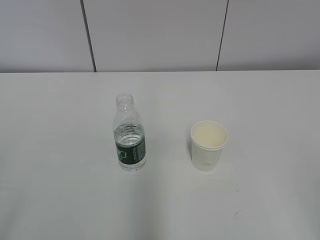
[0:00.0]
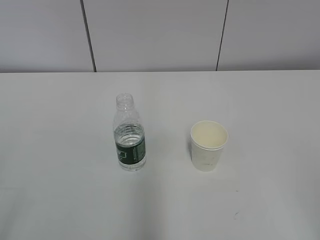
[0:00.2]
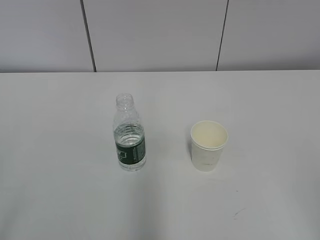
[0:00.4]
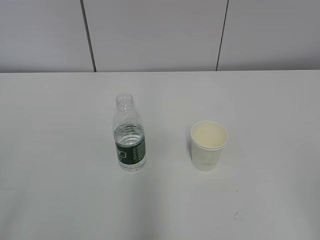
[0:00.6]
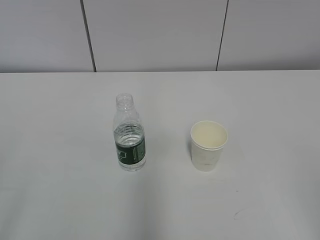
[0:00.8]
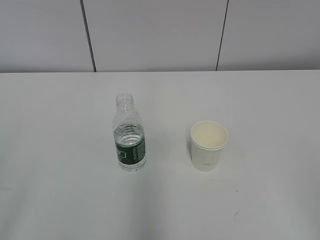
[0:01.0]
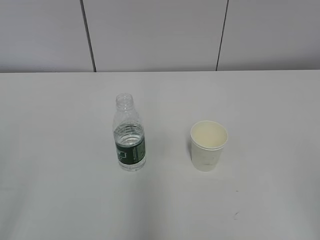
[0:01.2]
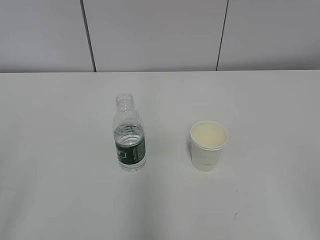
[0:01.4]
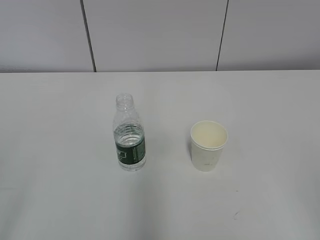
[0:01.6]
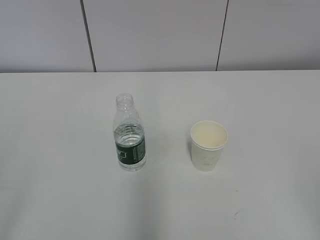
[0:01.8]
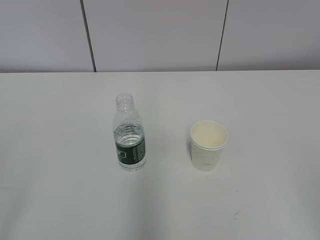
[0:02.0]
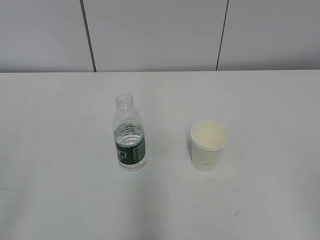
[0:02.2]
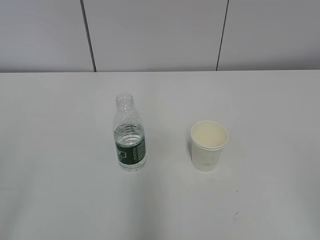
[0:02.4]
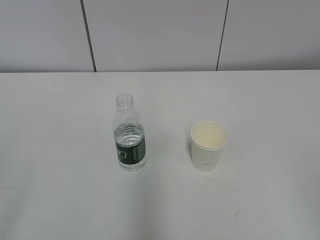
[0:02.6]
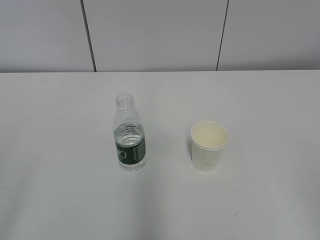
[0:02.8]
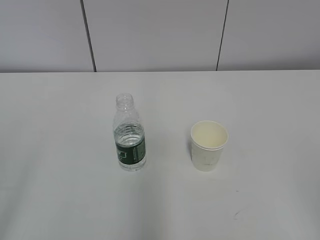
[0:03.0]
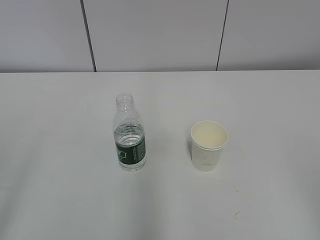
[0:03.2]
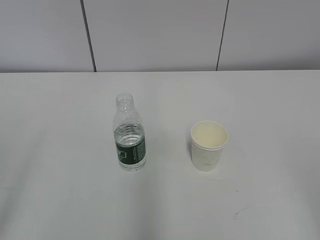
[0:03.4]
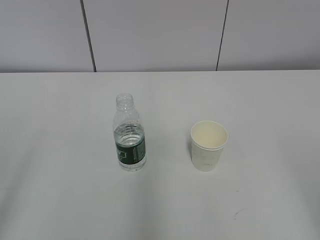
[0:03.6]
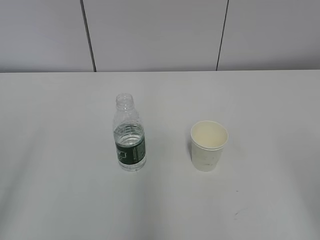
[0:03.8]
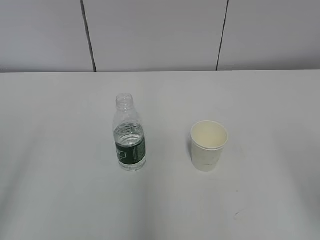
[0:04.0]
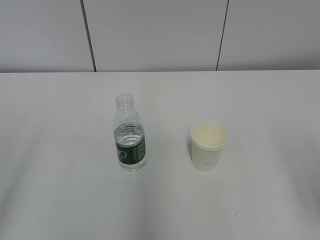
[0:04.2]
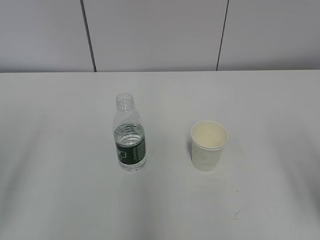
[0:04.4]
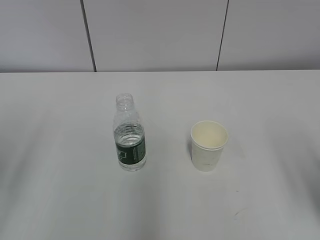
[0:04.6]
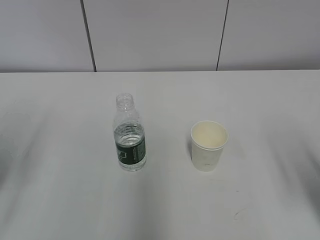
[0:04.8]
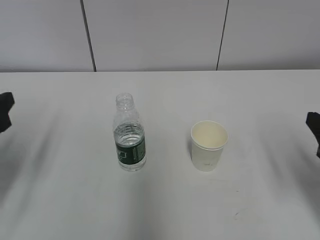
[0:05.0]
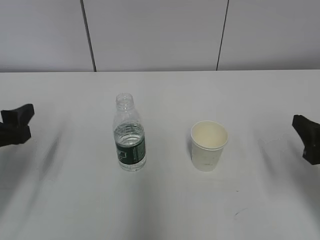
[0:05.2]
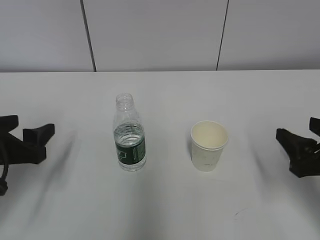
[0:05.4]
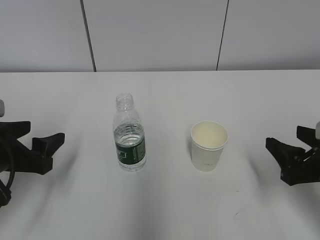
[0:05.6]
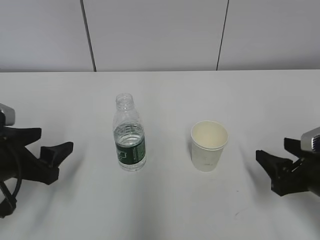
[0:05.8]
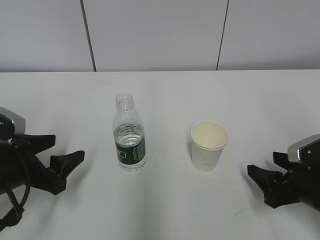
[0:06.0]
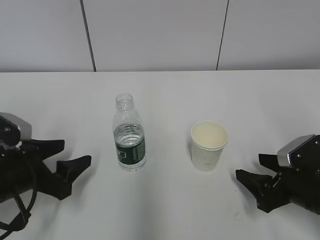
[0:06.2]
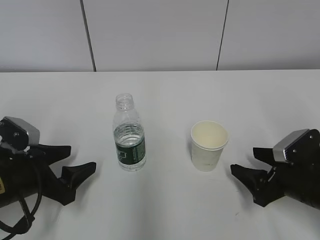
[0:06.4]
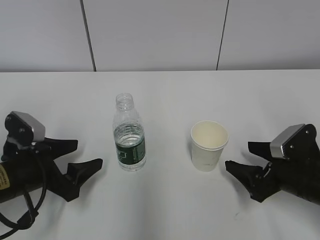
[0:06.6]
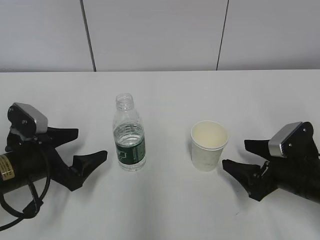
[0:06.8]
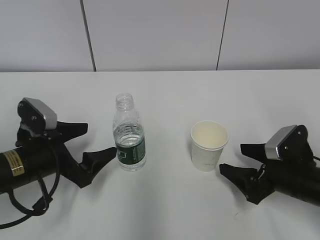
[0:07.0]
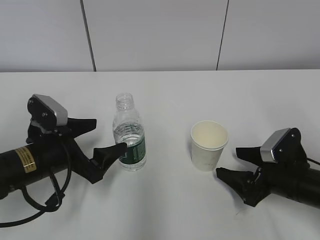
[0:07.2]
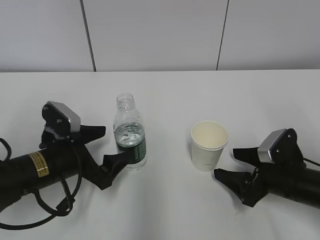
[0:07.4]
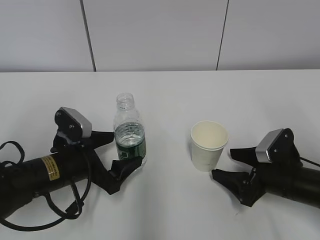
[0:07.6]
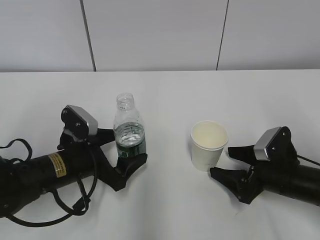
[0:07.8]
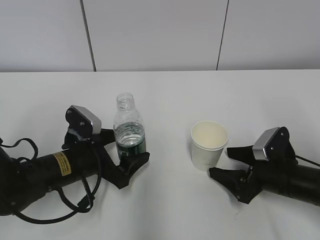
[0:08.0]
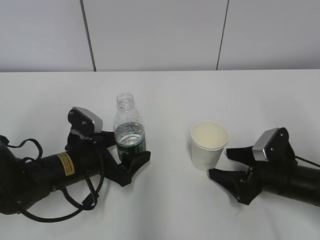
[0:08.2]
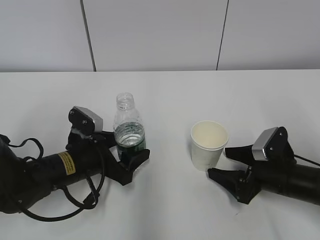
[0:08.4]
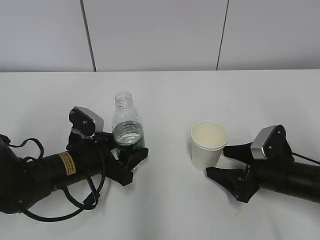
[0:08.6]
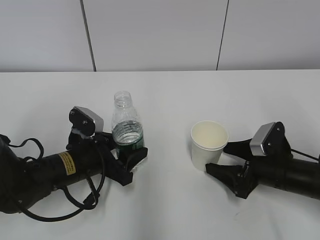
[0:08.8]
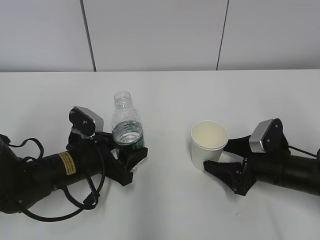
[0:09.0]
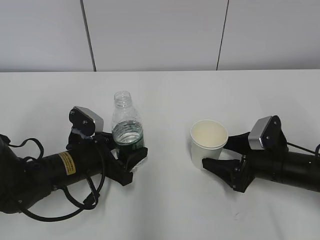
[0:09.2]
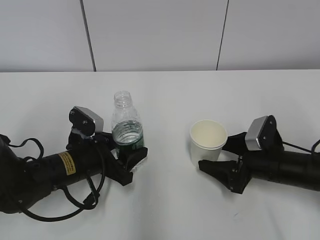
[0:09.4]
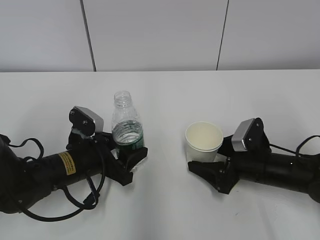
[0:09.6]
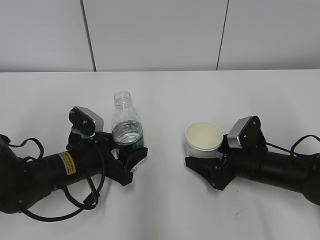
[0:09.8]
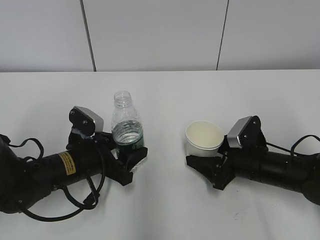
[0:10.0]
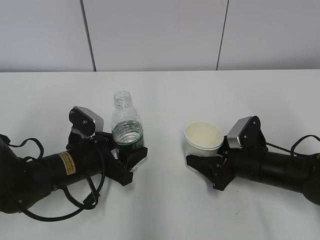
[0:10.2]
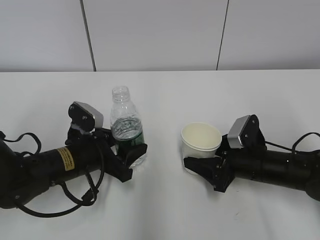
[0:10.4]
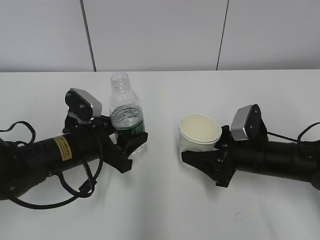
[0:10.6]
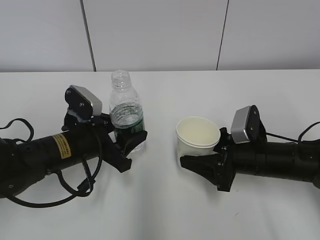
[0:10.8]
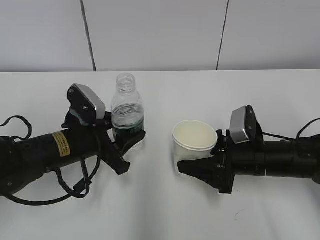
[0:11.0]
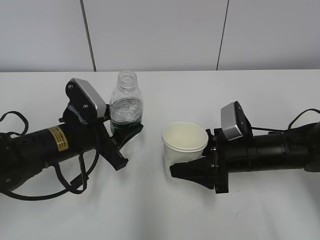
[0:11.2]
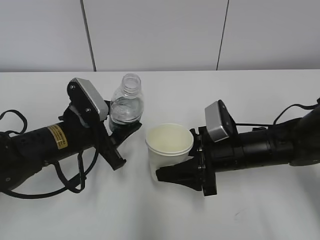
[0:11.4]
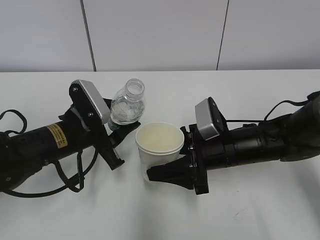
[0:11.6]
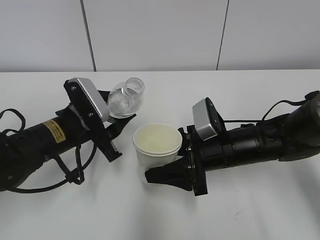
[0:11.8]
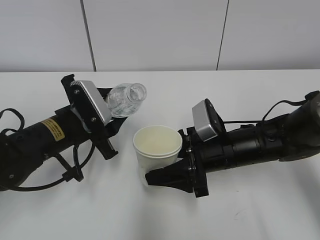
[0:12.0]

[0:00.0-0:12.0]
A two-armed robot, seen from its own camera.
Step, 0:00.0 to 0:08.4: Grab the paper cup with the right hand.
Step, 0:08.6 to 0:11.8: Lift the paper cup with the right hand.
0:04.4 to 0:06.0: The right gripper heads downward and forward, covering some 20 cm, while the left gripper moves downward, forward and to the right, about 20 cm.
0:06.0 to 0:07.6: The left gripper travels to the right by roughly 10 cm. Meanwhile the right gripper changes place by some 5 cm, and opens.
0:07.6 to 0:09.0: The left gripper closes.
0:09.0 to 0:10.4: The right gripper closes.
0:10.4 to 0:12.0: The right gripper goes roughly 5 cm to the left. The left gripper goes about 5 cm upward.

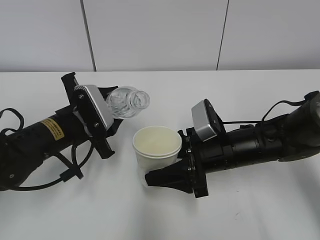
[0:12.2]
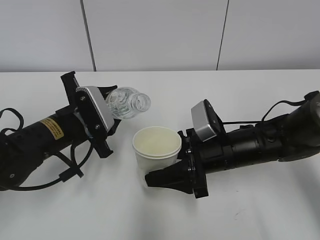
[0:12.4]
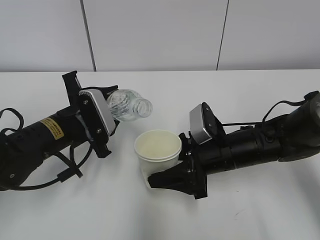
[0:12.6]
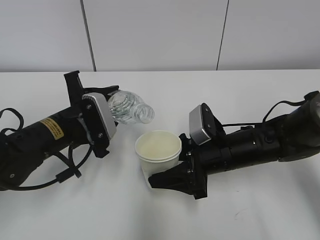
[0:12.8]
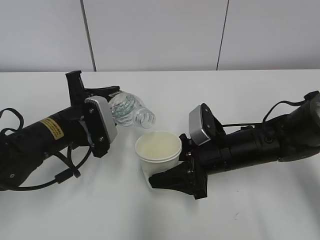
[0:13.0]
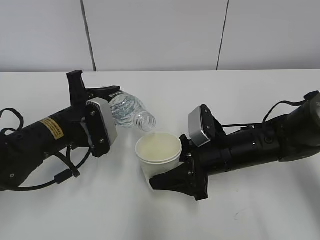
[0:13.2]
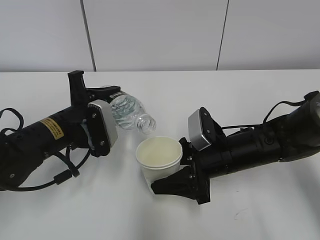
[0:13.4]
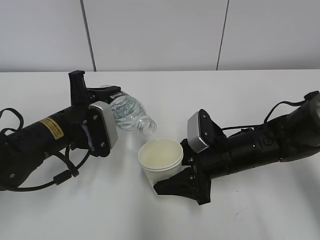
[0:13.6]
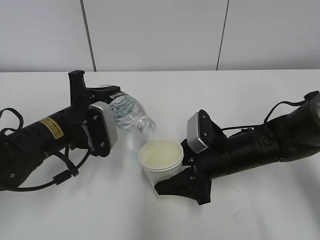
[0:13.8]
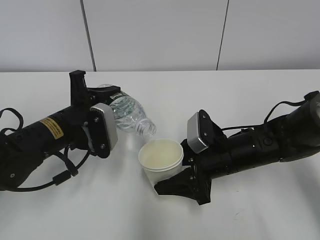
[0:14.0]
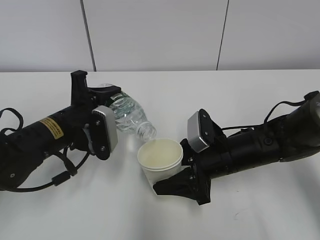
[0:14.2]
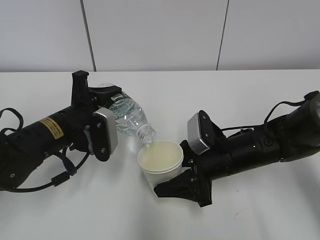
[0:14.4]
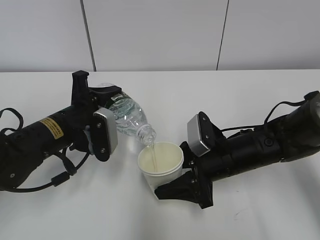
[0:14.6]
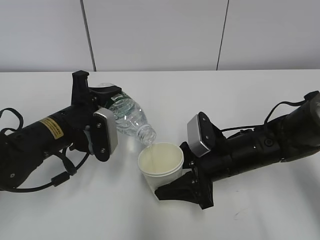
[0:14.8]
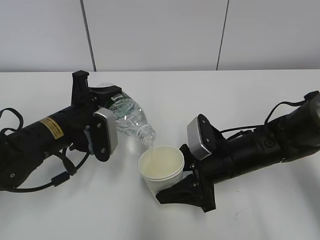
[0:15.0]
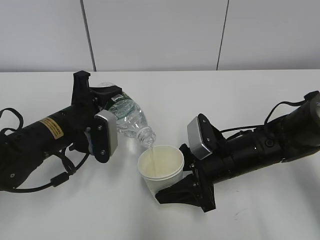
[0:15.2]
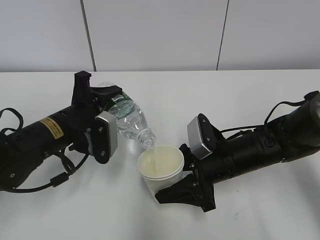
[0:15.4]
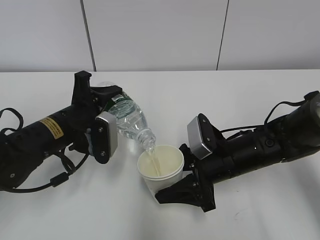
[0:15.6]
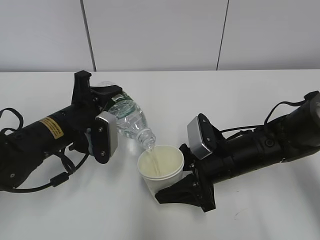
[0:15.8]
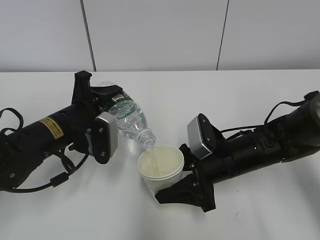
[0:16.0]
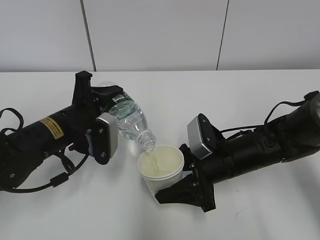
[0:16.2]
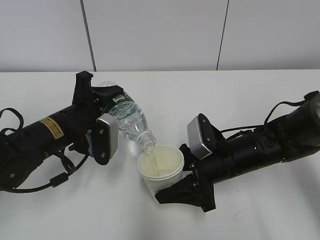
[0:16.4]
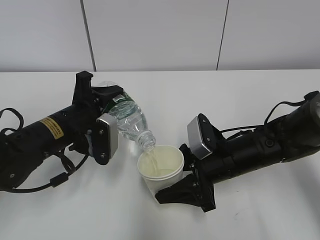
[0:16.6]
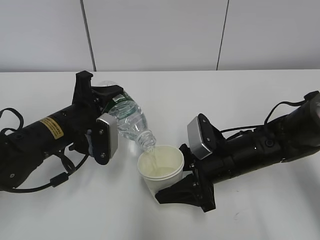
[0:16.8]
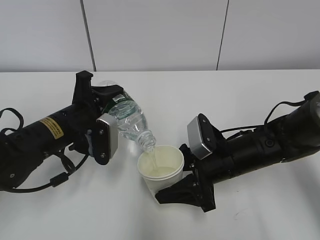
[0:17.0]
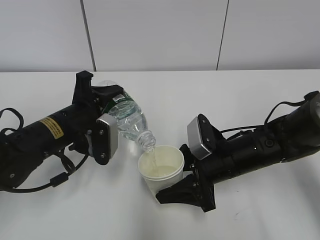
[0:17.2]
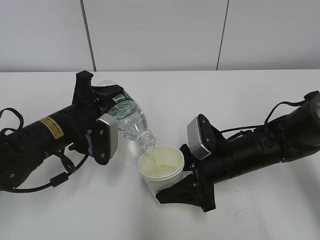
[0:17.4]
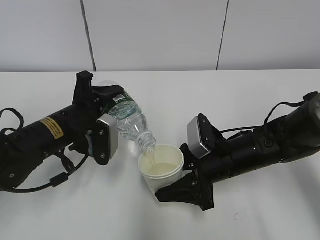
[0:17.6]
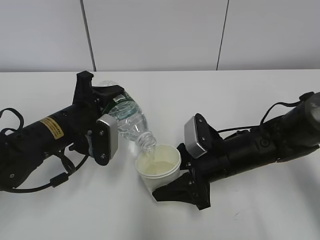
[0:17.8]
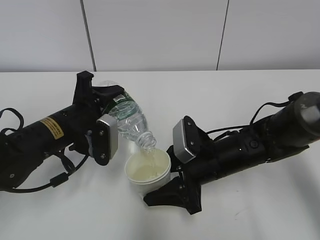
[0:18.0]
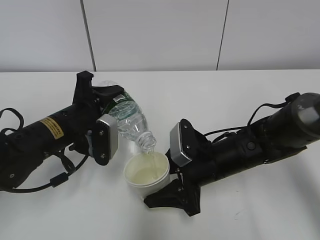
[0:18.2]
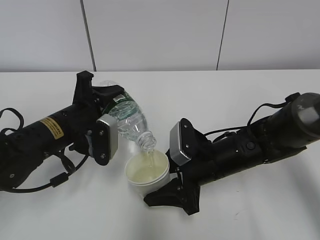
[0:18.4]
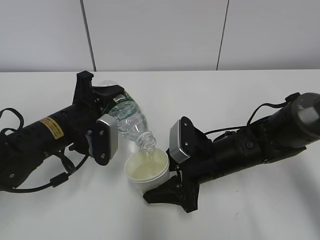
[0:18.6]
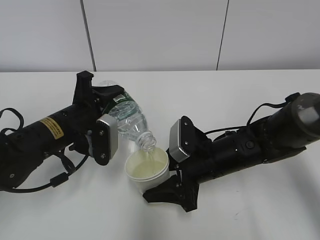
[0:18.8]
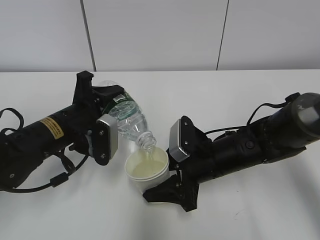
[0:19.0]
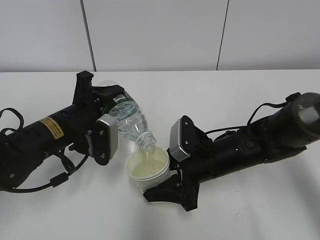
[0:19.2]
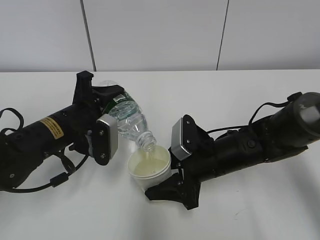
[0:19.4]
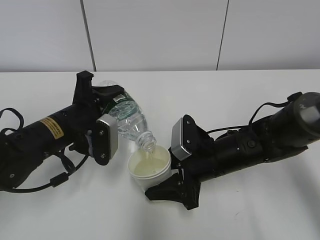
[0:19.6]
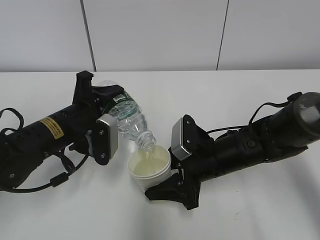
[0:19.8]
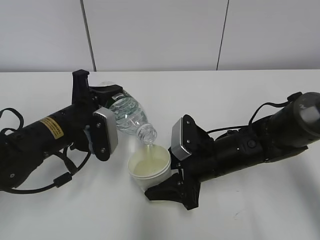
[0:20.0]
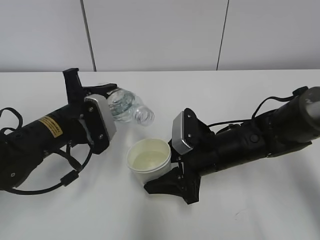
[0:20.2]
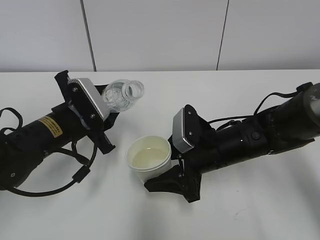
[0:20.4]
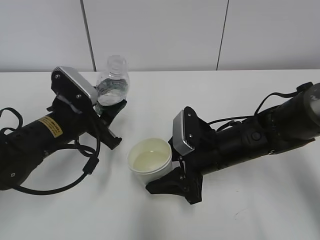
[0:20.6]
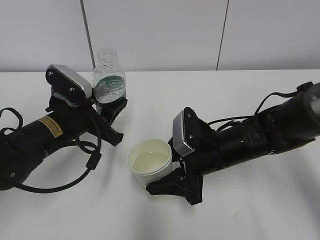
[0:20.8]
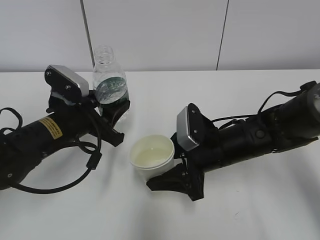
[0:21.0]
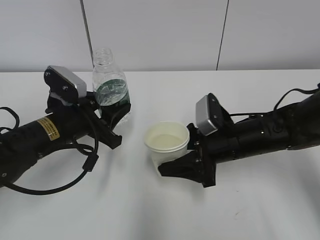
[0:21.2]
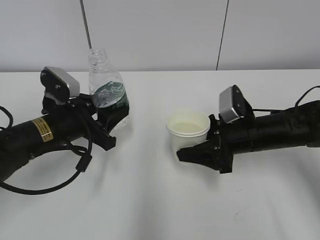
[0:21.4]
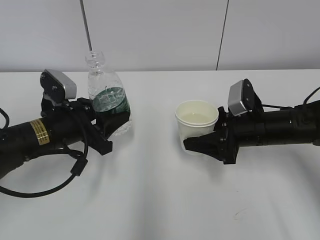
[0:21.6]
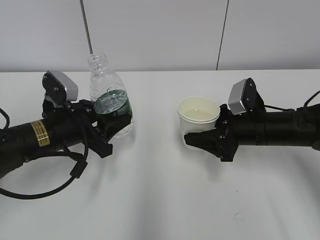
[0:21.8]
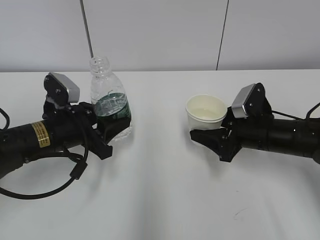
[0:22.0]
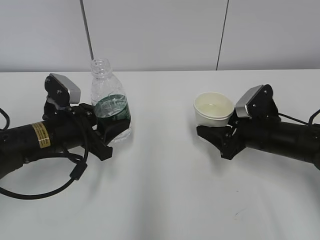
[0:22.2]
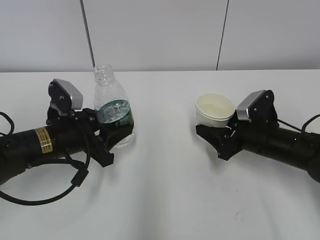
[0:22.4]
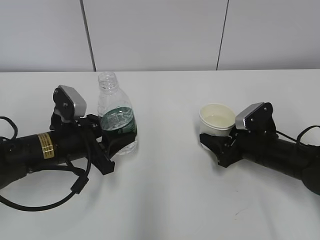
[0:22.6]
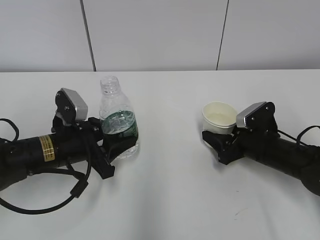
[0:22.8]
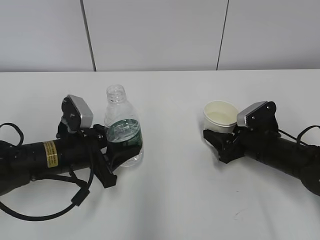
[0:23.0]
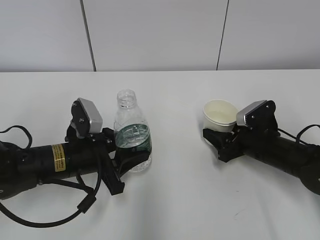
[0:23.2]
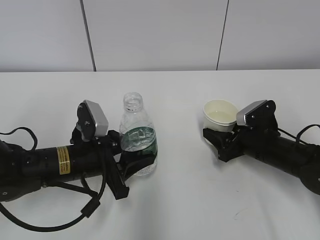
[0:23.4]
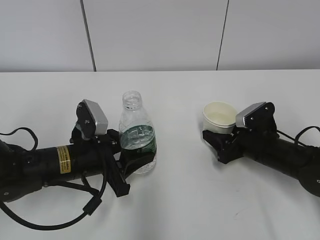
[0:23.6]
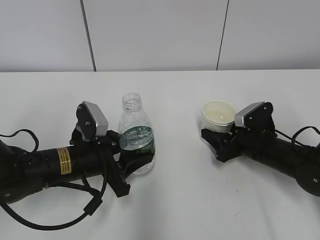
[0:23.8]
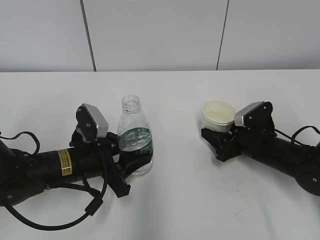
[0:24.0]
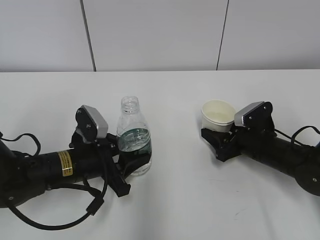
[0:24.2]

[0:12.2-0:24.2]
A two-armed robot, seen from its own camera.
Step, 0:12.2 to 0:16.6: Fill water with the right hand.
Step, 0:17.6 to 0:20.4: Place the paper cup with the right hand.
Step, 0:20.6 to 0:22.0: Place the water bottle with the left hand.
0:13.8 to 0:15.2: The grippers move only a little.
0:15.2 to 0:16.6: Neither gripper changes place.
0:16.6 to 0:18.2: The grippers stay close to where they were, moving slightly.
0:18.2 to 0:19.8: The two grippers keep their place.
0:21.2 to 0:22.6: The right gripper goes roughly 10 cm to the right and downward.
0:22.6 to 0:24.2: There are only small adjustments of the grippers.
